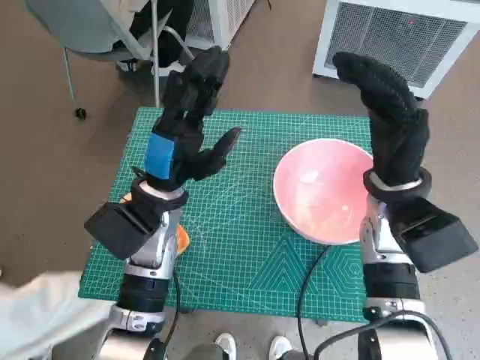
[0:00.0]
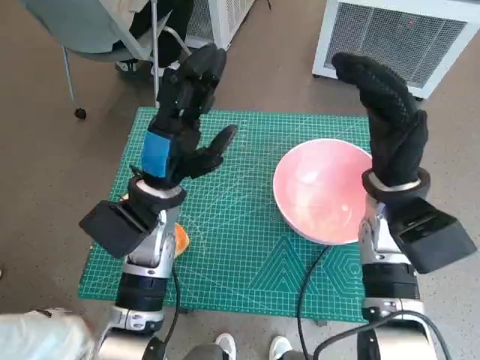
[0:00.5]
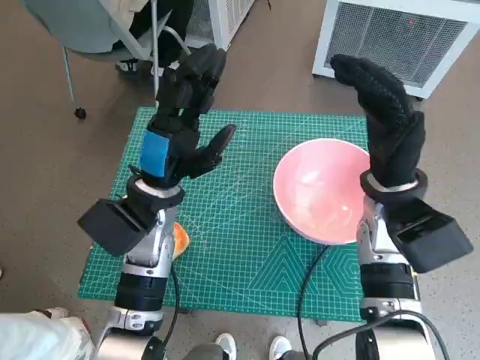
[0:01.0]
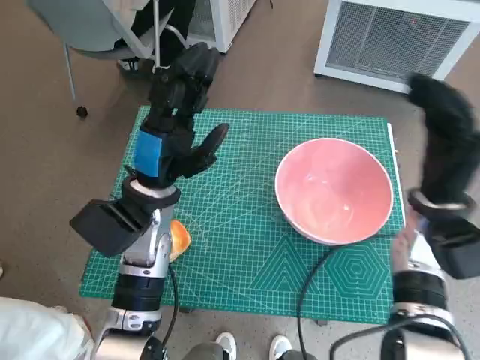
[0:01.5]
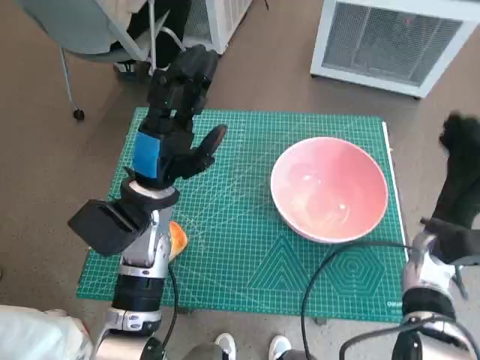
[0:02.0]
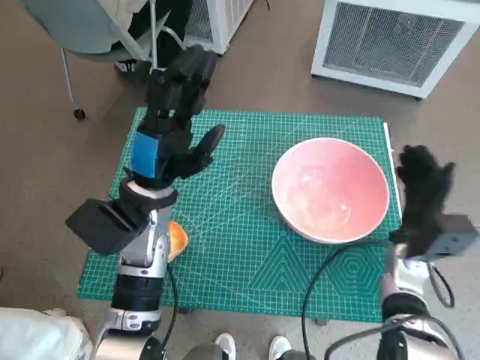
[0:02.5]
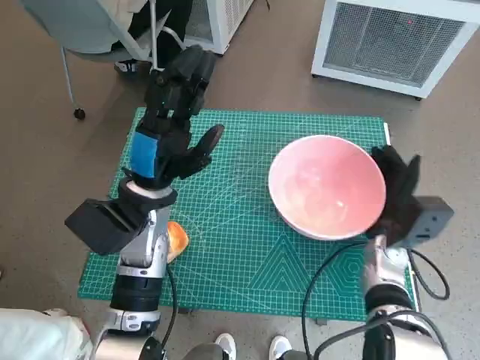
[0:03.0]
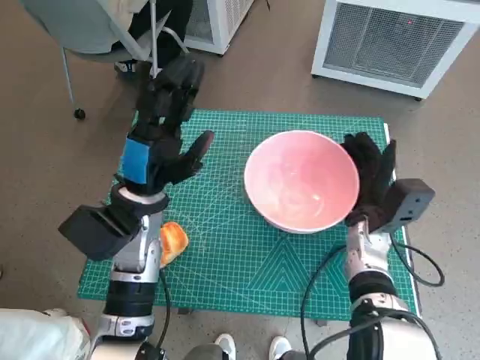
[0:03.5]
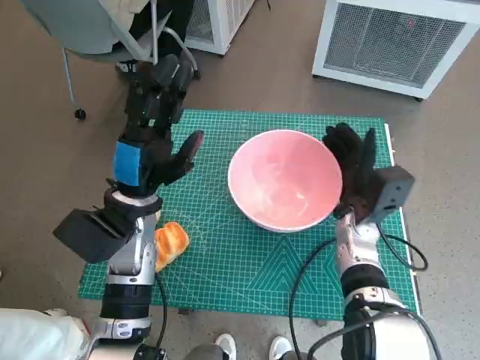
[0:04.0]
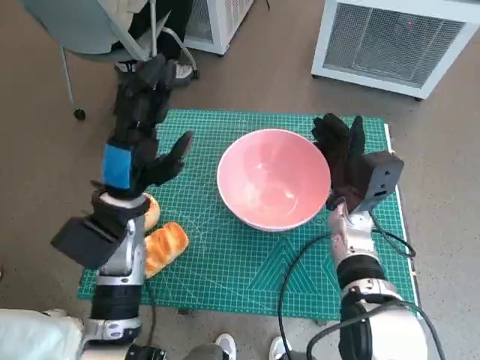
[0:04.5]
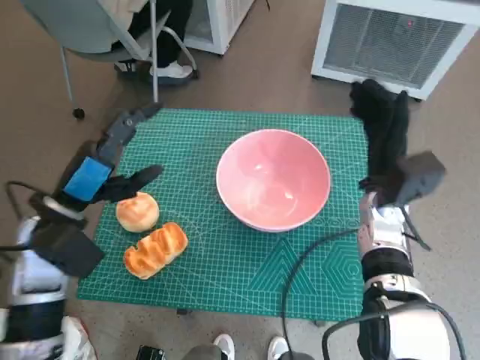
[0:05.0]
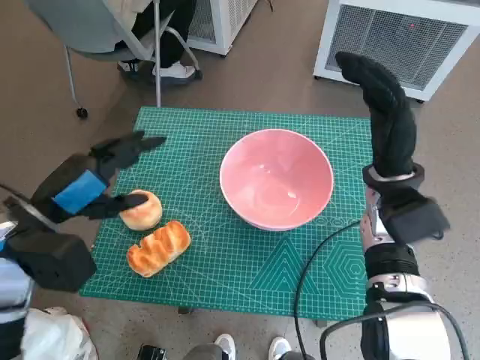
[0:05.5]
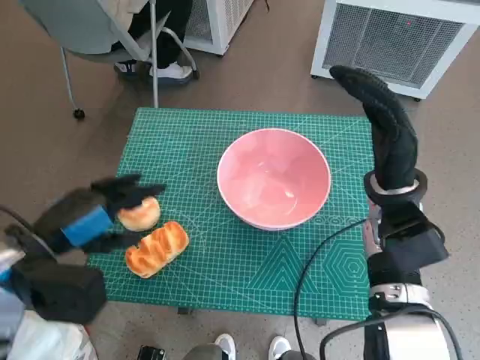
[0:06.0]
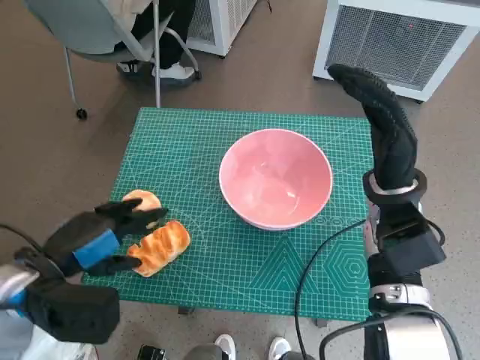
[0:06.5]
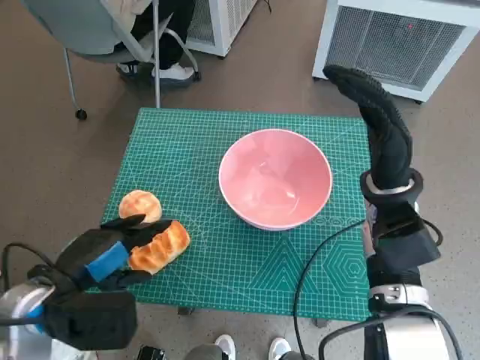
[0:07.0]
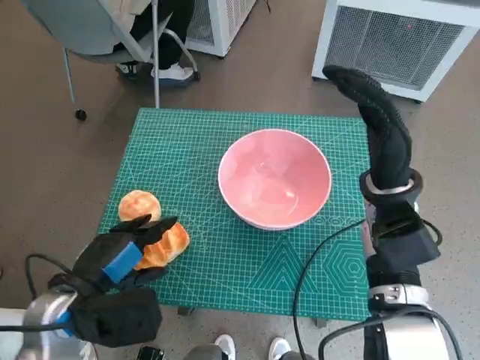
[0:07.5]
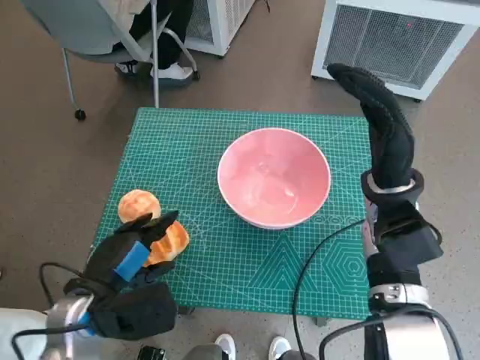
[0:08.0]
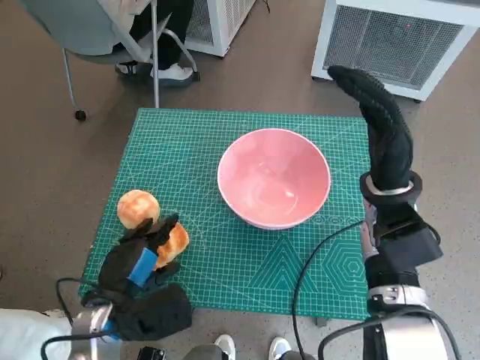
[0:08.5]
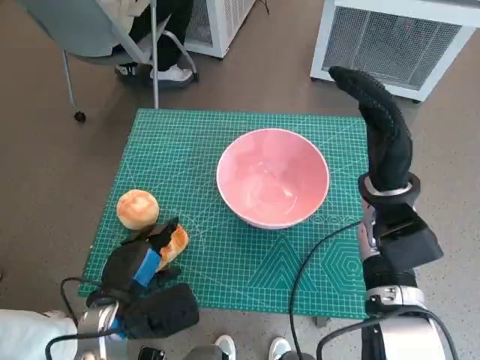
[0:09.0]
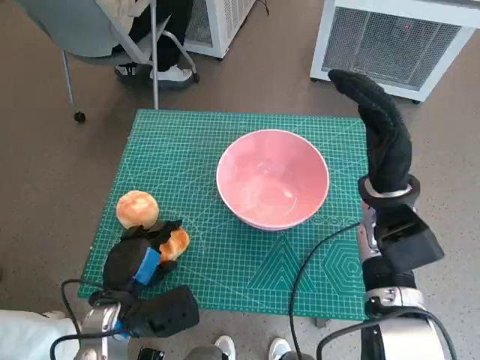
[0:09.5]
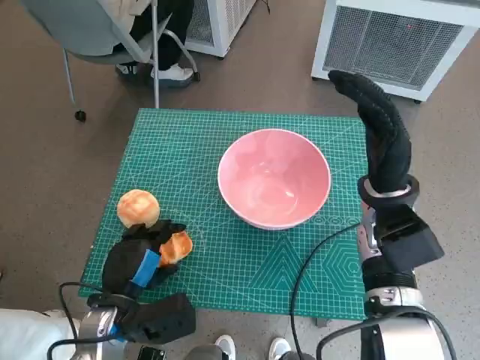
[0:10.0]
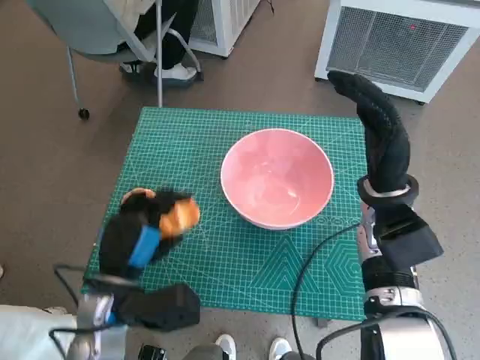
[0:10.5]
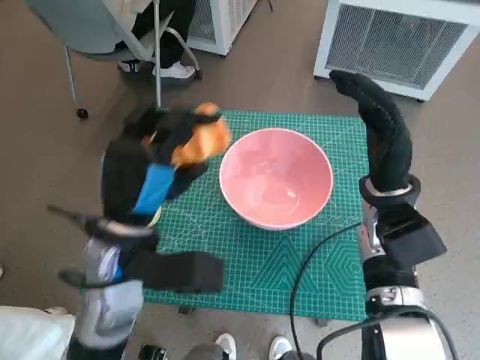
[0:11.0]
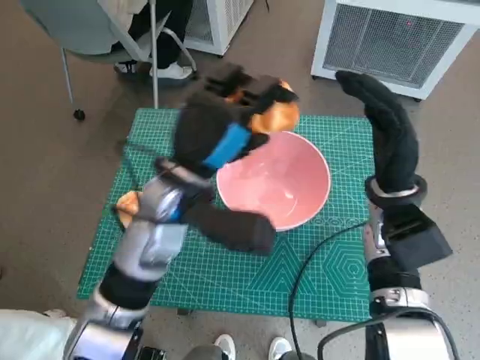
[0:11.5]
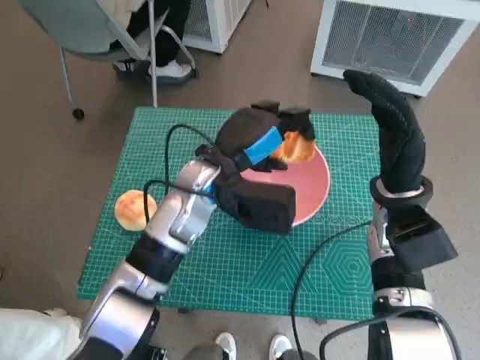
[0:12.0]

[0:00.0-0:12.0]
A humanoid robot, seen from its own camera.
Task of the whole recording: Push the bowl to the center of the table and put the bread into the bowl.
Step, 0:00.0 to 0:05.5: Move the pink bowl to the center of table with right hand.
Step, 0:06.0 to 0:09.0: Grasp the long bread with left hand.
0:02.0 to 0:04.0: The right hand goes about 10 cm to the left.
0:04.0 to 0:06.0: The right hand travels upward by approximately 10 cm. The left hand goes about 10 cm to the left and backward.
0:06.0 to 0:08.0: The left hand travels downward and to the right by approximately 10 cm.
0:08.0 to 0:10.0: The left hand ends up about 5 cm from where it was.
0:10.0 to 0:12.0: The left hand heads forward, to the right and upward, covering about 25 cm.

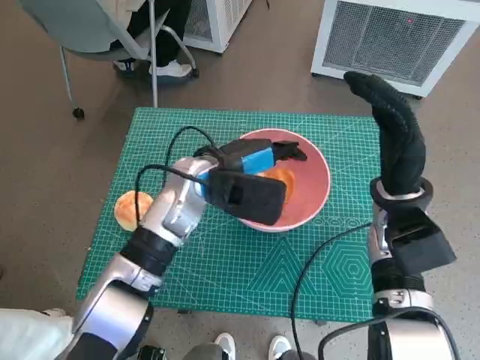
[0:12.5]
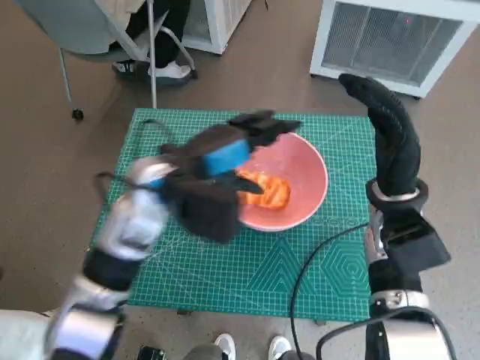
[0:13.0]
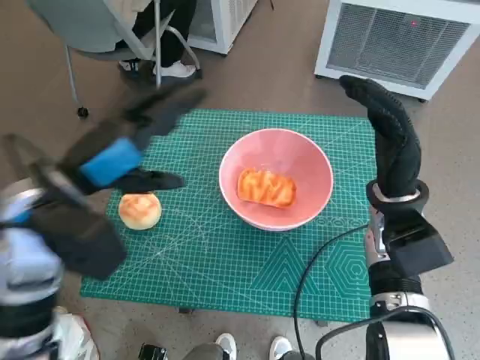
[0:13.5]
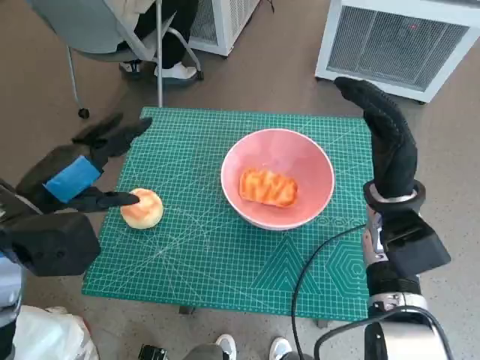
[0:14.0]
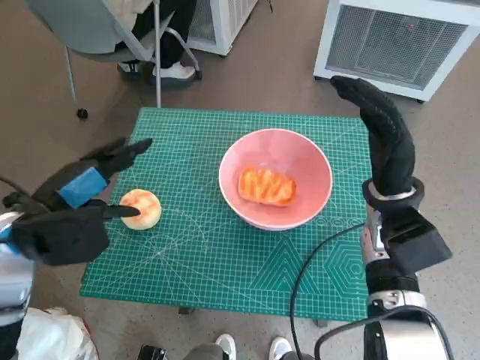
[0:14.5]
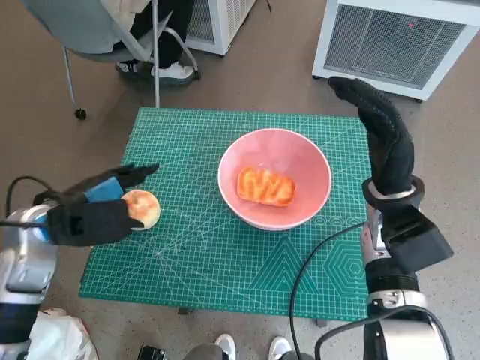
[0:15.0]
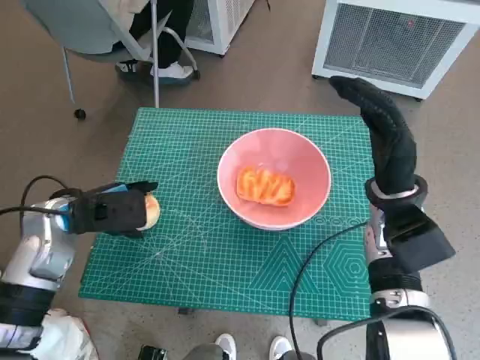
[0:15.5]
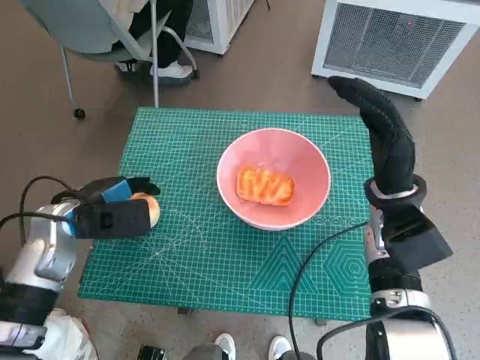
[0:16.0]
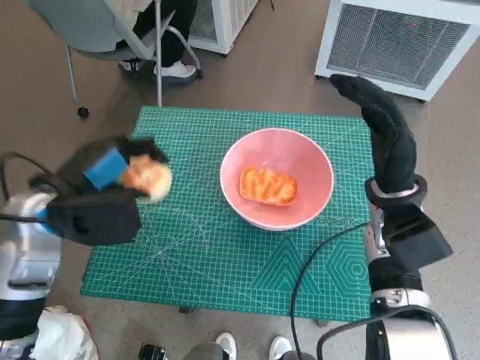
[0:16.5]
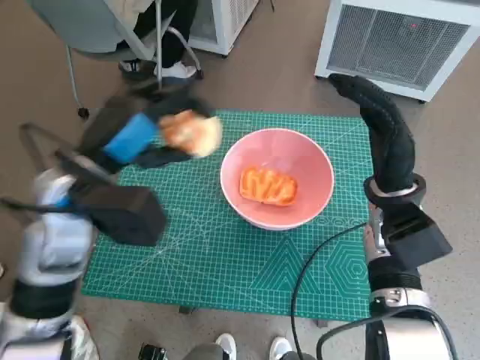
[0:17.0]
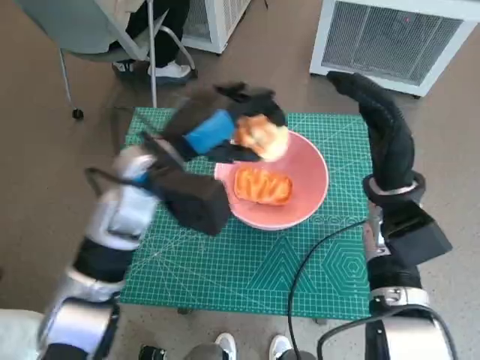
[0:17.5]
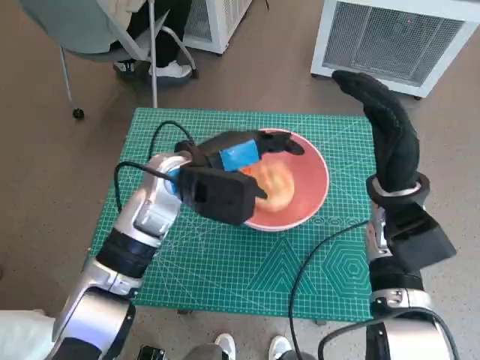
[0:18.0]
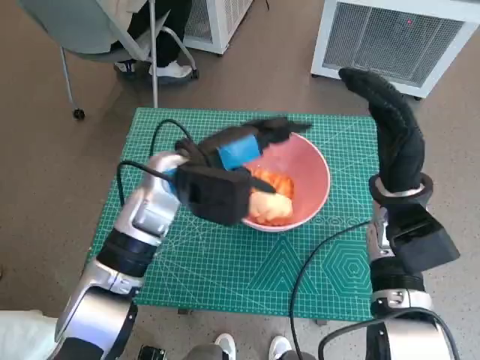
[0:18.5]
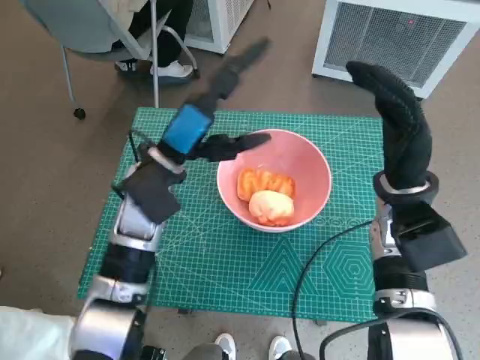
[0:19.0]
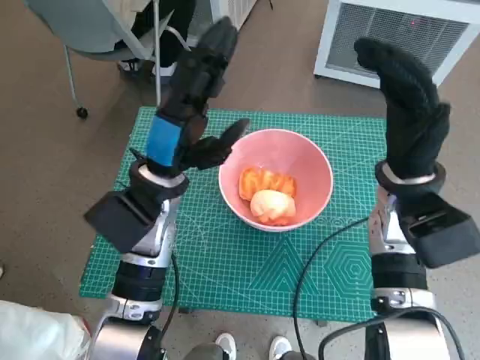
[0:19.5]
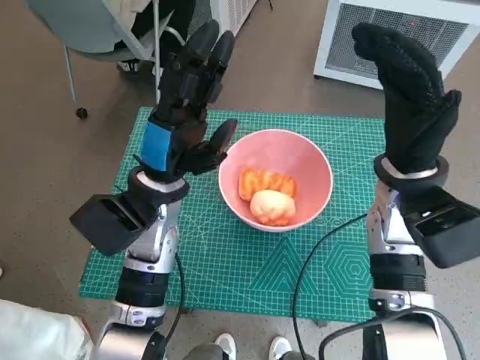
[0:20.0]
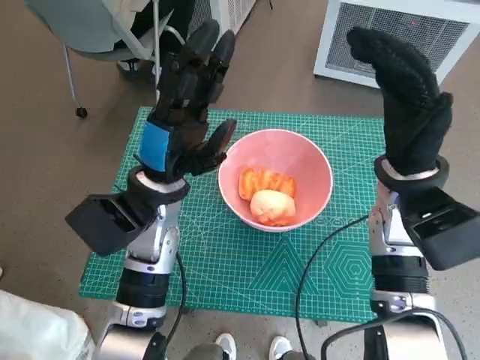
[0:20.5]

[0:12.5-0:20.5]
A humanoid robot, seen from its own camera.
Task of the whole recording: Push the bowl to the center of the table and put the bread into the bowl.
Step, 0:13.5 to 0:16.0: Grasp the round bread with left hand.
Step, 0:16.5 to 0:18.5: Place the round bread in pink bowl with left hand.
0:12.5 to 0:14.5: The left hand travels to the left and backward by about 20 cm.
0:16.5 to 0:18.5: The left hand moves to the right and forward, some 15 cm.

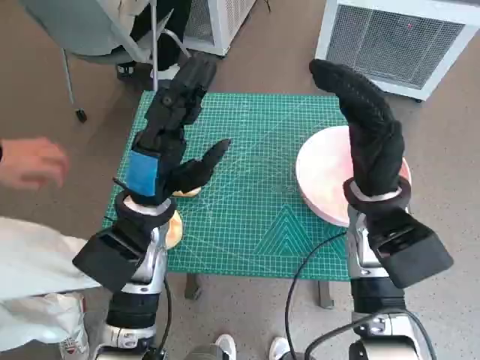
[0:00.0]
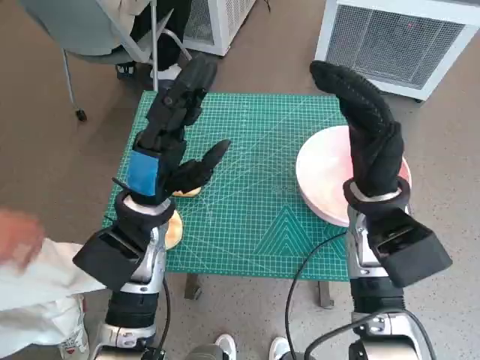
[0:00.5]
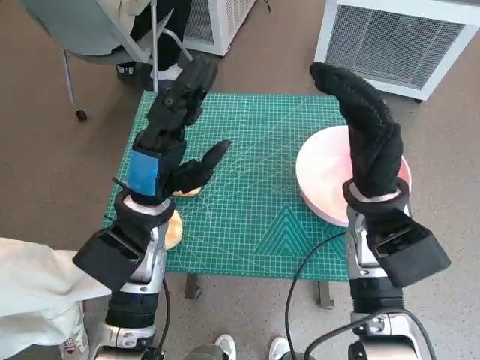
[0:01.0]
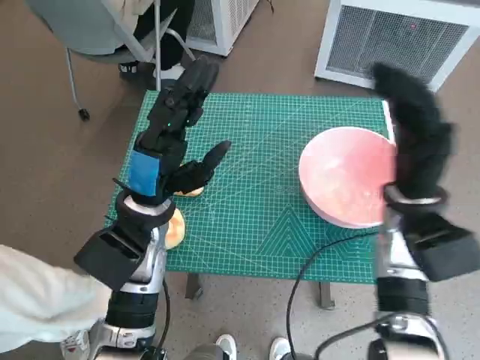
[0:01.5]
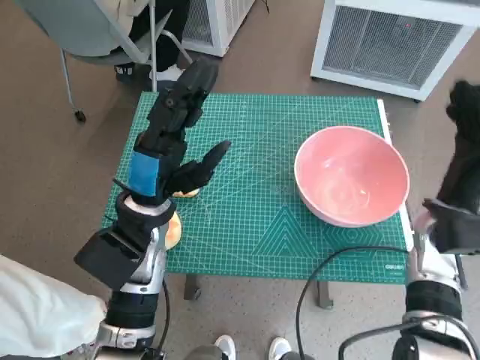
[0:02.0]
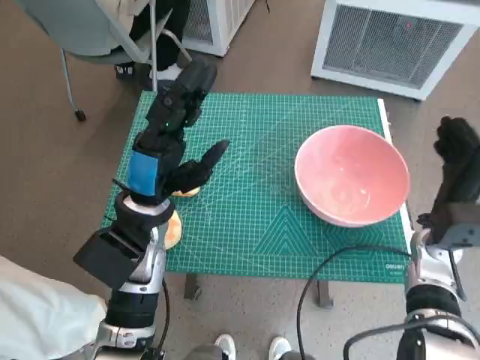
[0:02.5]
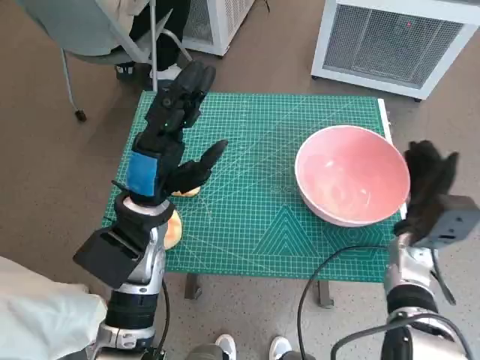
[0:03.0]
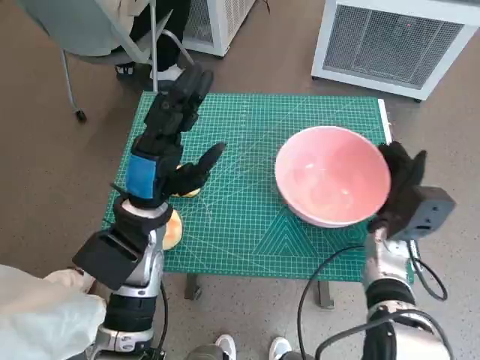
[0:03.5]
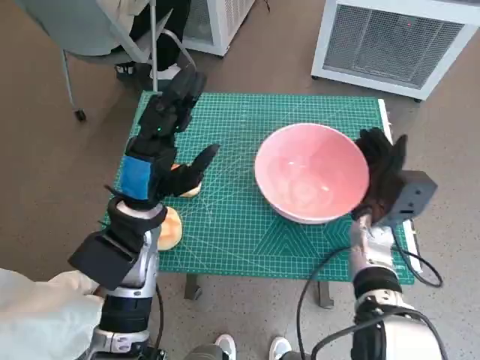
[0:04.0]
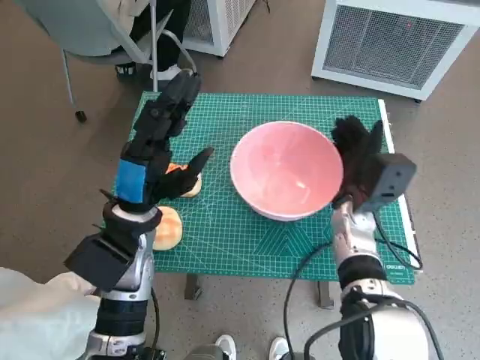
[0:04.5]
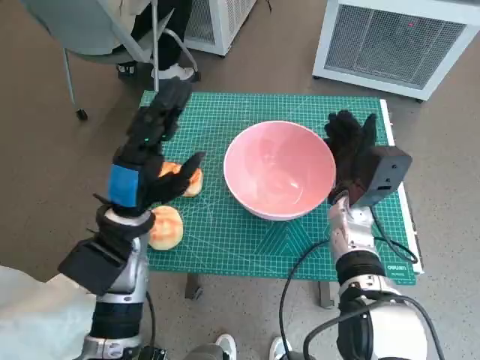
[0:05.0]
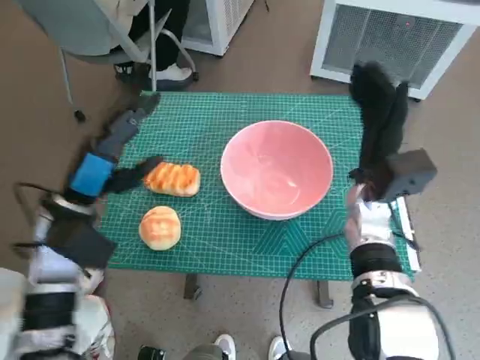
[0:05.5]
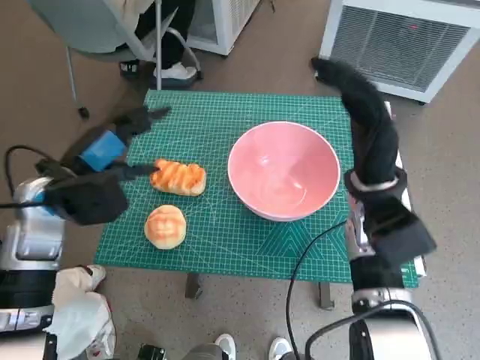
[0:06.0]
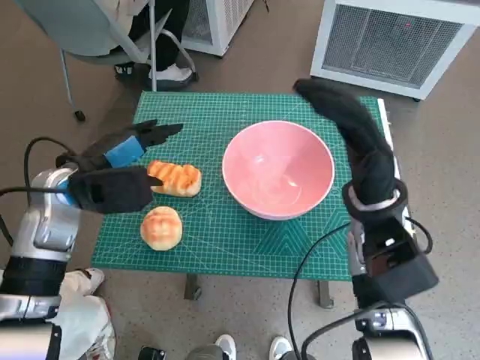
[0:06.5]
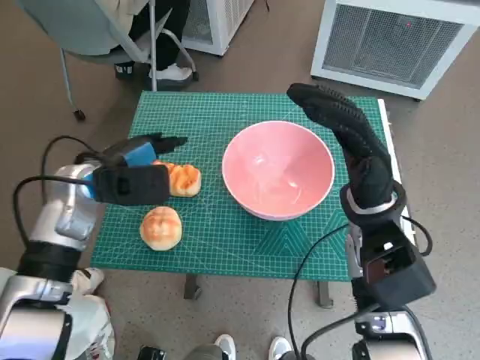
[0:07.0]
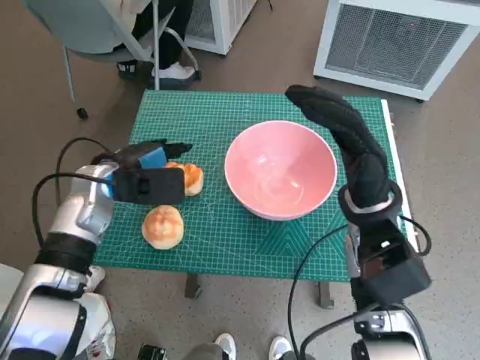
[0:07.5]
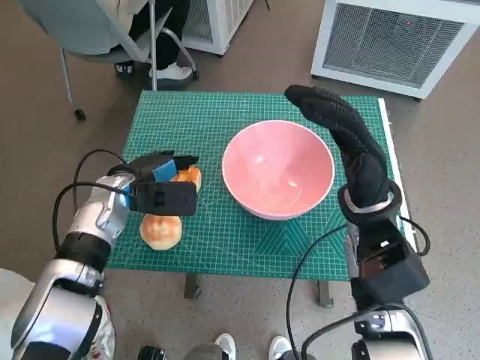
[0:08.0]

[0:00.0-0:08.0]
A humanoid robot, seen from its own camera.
Task of the whole recording: Push the bowl to the center of the table and put the bread into the bowl.
Step, 0:00.0 to 0:05.0: Move the pink bowl to the center of table with right hand.
0:02.0 to 0:04.0: The right hand goes roughly 10 cm downward and to the left.
0:04.0 to 0:06.0: The right hand is displaced upward by approximately 10 cm, while the left hand shifts about 10 cm to the left.
0:06.0 to 0:08.0: The left hand shifts about 10 cm downward and forward.
